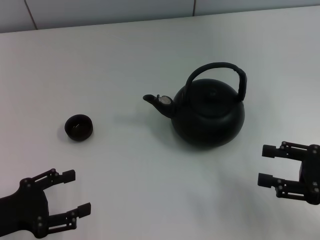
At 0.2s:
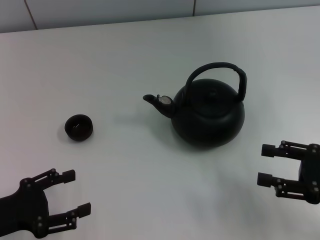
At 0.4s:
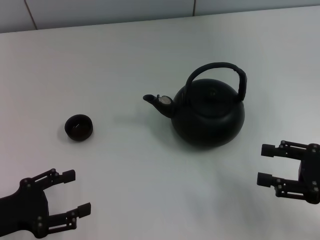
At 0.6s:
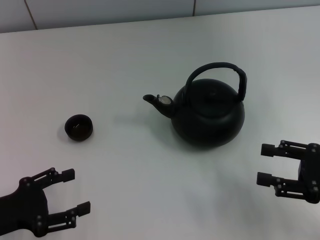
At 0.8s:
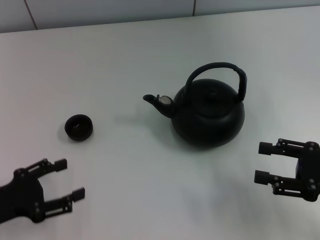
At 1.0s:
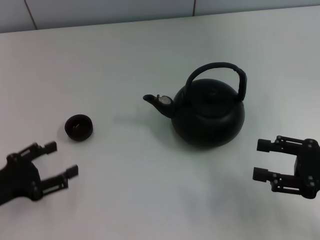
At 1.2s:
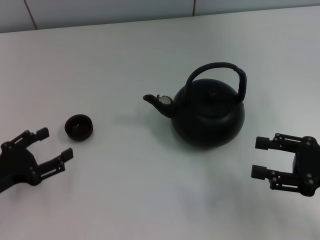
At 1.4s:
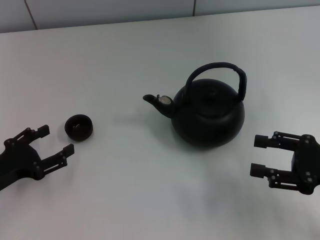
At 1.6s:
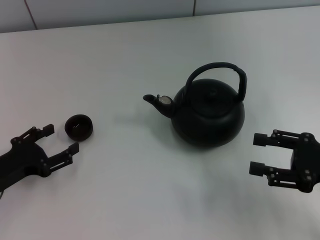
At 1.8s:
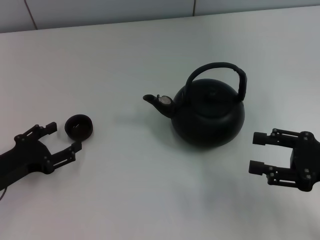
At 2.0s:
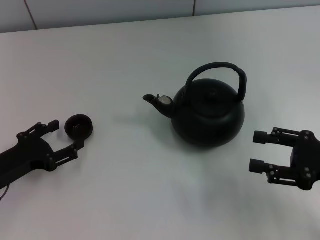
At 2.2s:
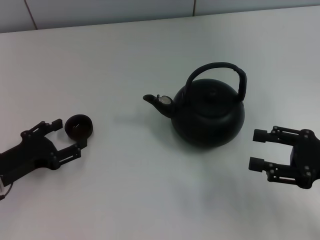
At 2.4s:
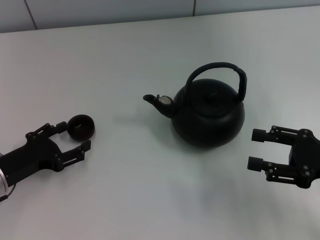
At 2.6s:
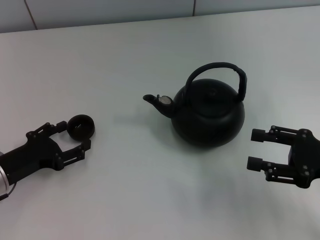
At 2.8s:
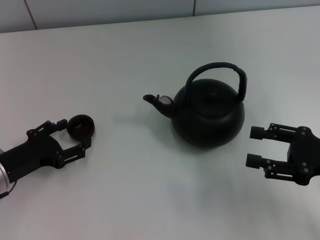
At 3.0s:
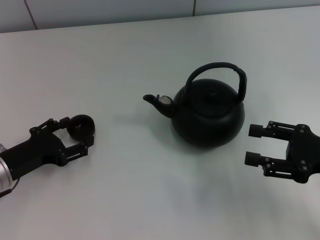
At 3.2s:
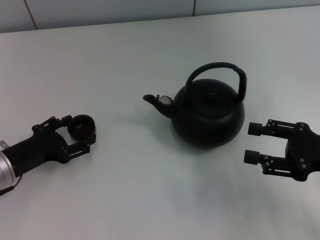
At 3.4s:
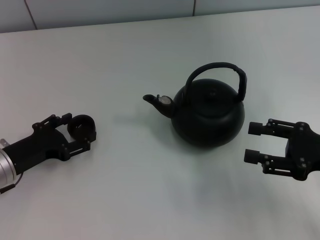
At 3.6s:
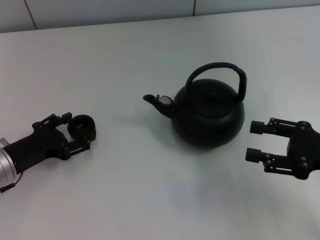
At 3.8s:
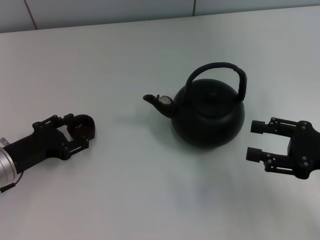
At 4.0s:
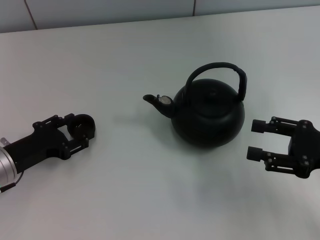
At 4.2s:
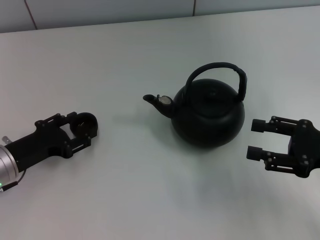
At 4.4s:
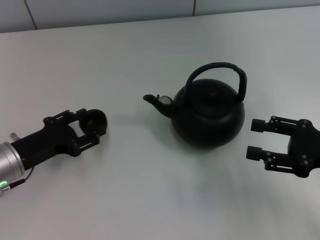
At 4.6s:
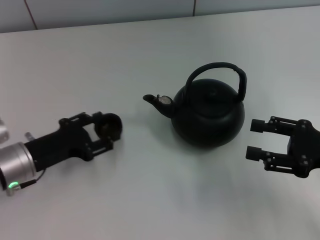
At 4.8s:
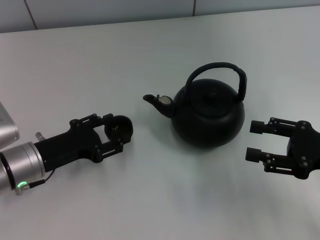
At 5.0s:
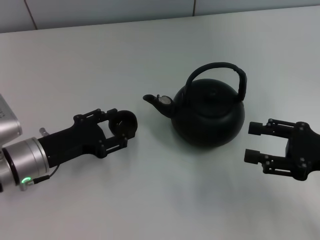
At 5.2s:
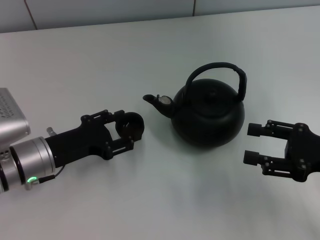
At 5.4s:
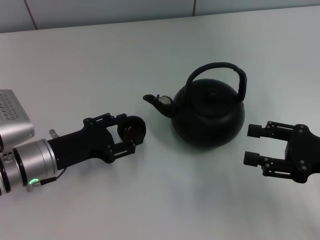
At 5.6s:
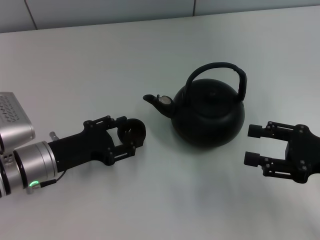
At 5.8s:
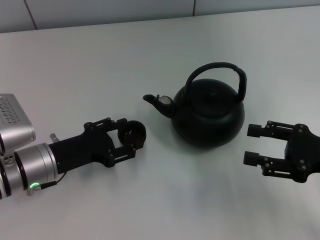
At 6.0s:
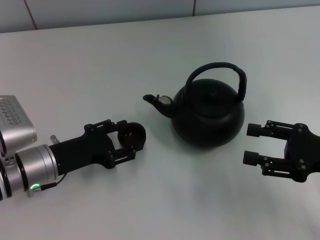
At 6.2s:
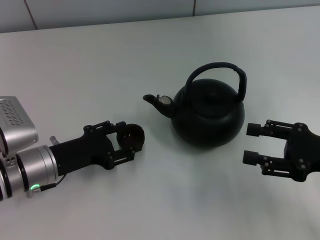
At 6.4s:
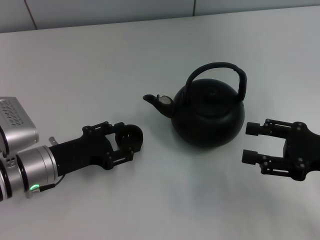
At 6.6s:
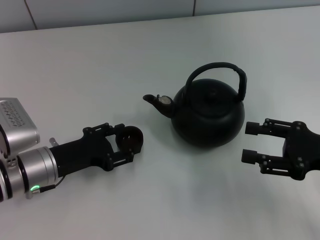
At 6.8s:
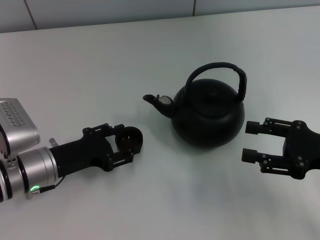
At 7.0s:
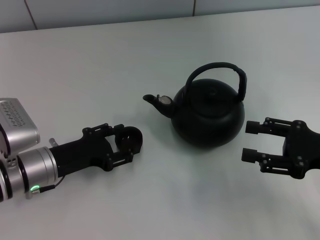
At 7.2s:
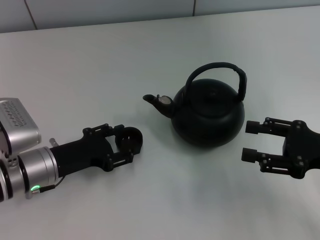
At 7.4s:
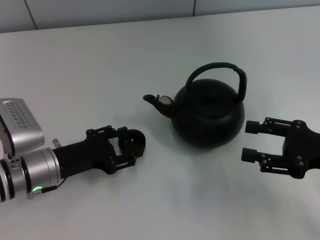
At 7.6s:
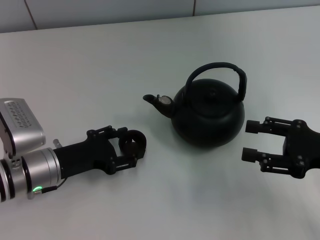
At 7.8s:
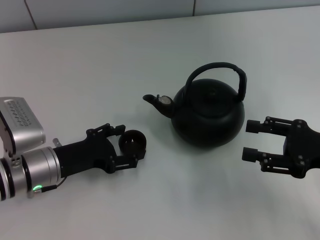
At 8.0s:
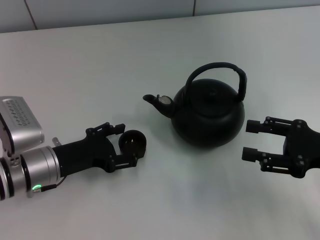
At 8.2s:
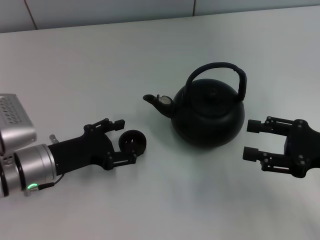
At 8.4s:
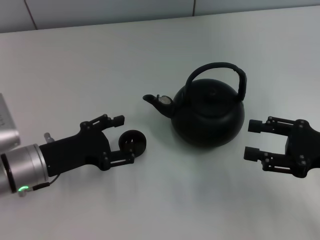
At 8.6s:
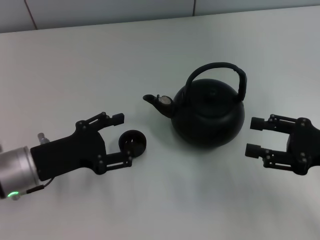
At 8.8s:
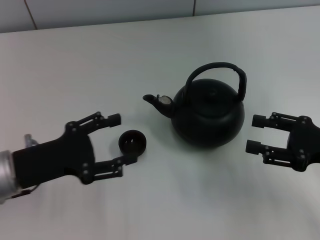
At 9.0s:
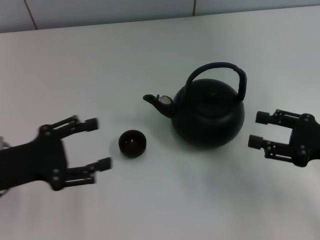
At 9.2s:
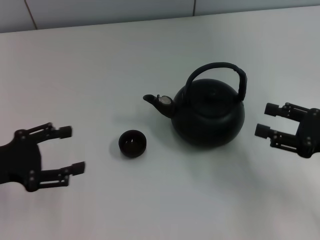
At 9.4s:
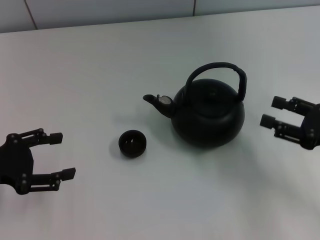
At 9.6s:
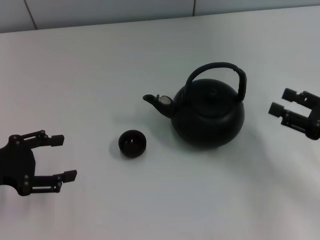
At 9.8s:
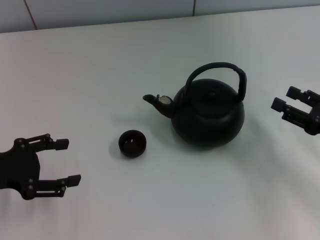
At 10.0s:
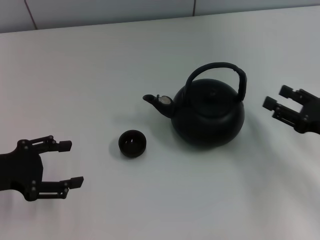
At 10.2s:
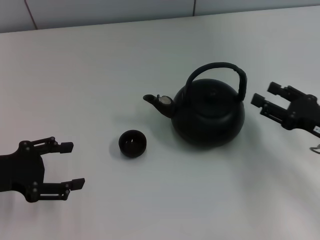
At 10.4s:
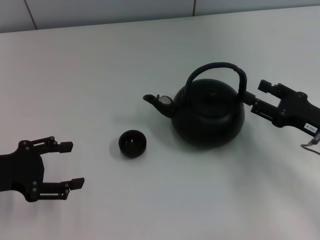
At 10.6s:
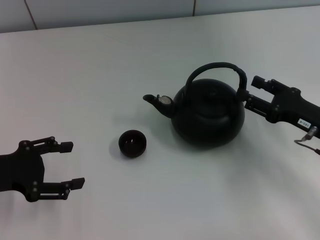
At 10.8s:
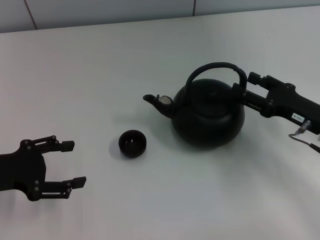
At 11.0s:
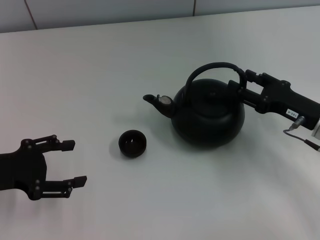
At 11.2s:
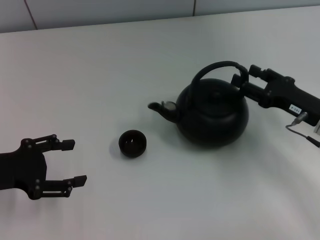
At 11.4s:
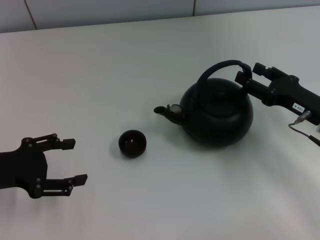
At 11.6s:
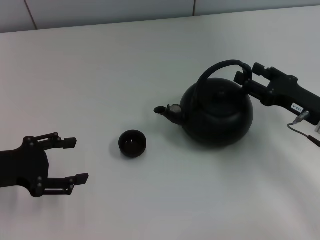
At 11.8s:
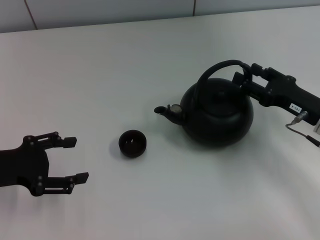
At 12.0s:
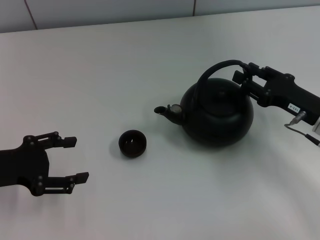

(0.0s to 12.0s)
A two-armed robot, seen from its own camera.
Task of the whole recording: Grasp the handle of the teapot with one hand and pour tea into the teacup.
Step, 0.0s - 4.2s: Pick up the teacup with the left gripper.
Step, 4.4s - 8.2s: Place the teacup in the center of view with the left gripper.
0.0s - 1.6s: The left gripper moves some 5 cm.
1.6s - 3.0s: The grippers make only small movements.
3.0s - 4.4s: The left gripper closes.
4.4s - 6.0s: The grippers make only small movements.
6.0s - 7.6s: Both grippers stay about where they are.
7.6s - 9.0s: The left gripper moves to the left and upward, approximately 10 cm, and opens.
9.0s - 10.4s: The right gripper shifts by approximately 5 cm.
10.4s - 12.0s: There are only small adjustments of the grippers.

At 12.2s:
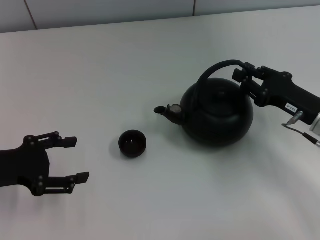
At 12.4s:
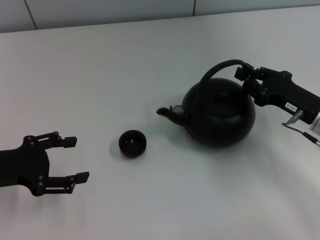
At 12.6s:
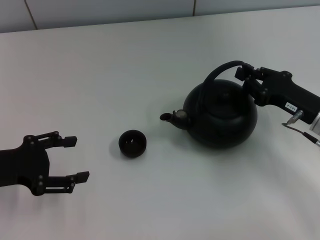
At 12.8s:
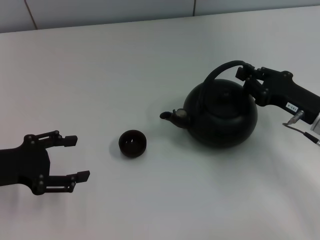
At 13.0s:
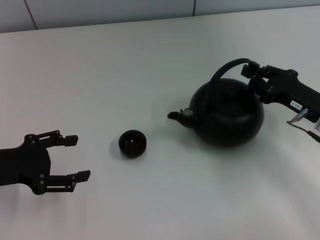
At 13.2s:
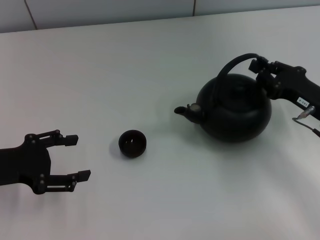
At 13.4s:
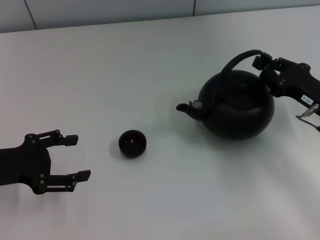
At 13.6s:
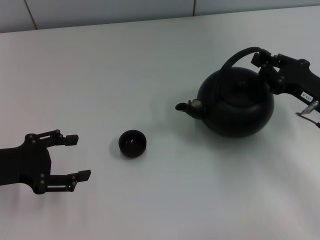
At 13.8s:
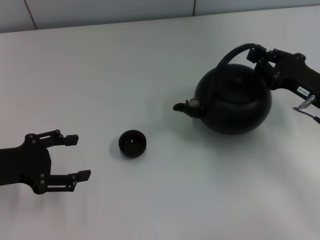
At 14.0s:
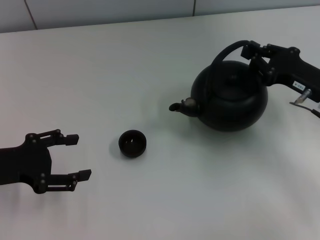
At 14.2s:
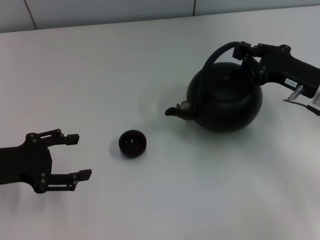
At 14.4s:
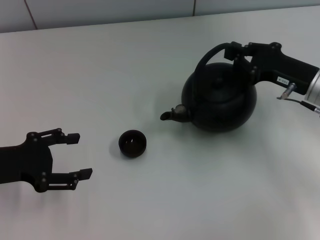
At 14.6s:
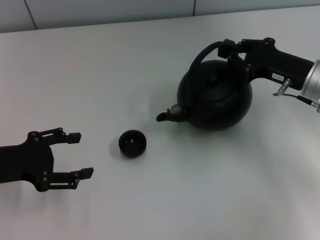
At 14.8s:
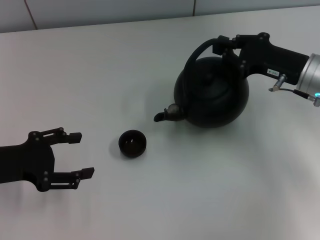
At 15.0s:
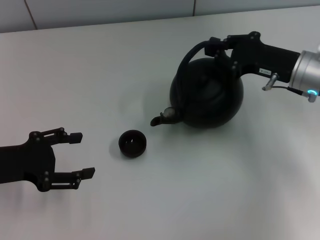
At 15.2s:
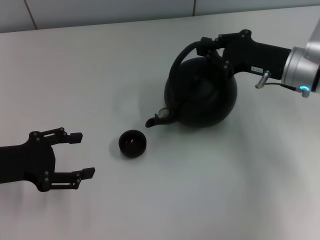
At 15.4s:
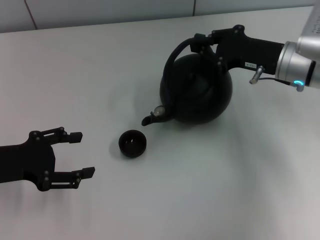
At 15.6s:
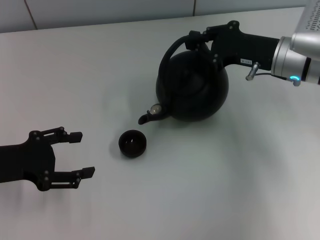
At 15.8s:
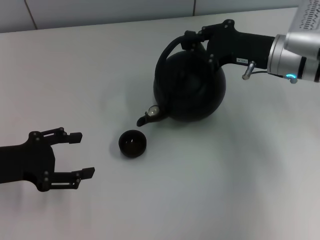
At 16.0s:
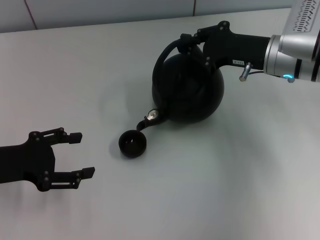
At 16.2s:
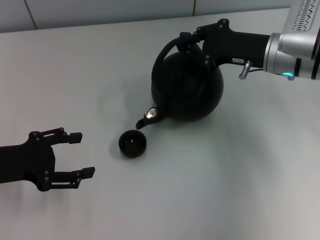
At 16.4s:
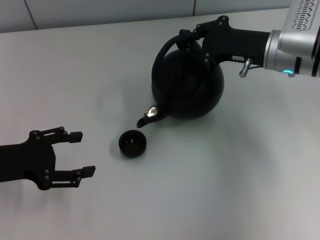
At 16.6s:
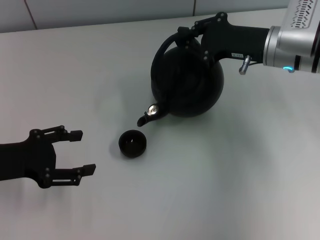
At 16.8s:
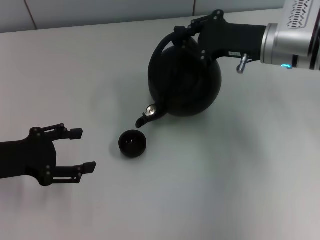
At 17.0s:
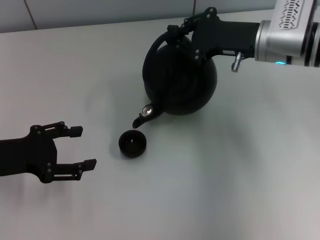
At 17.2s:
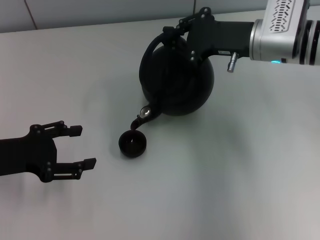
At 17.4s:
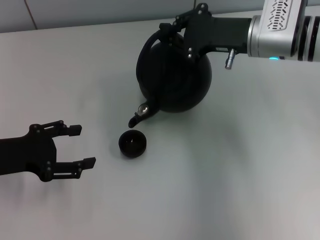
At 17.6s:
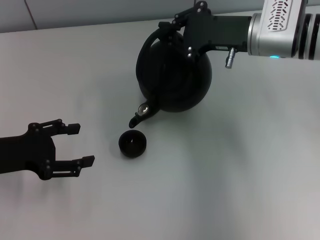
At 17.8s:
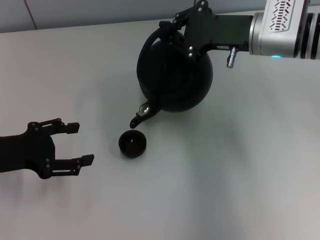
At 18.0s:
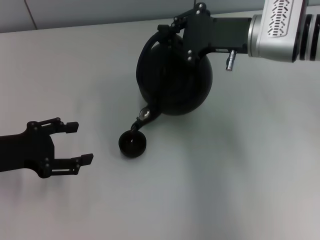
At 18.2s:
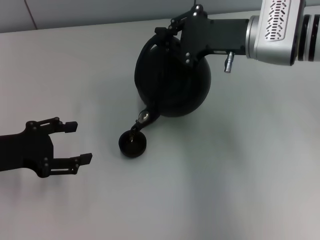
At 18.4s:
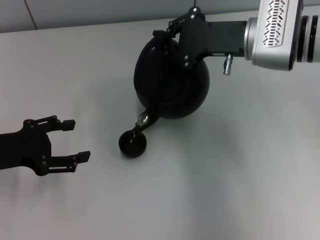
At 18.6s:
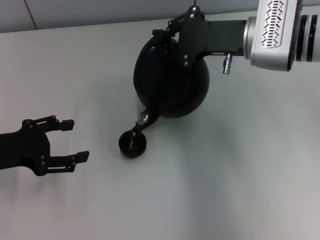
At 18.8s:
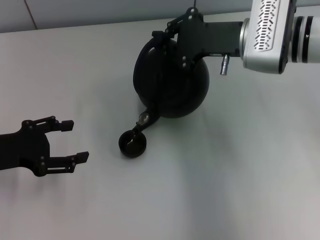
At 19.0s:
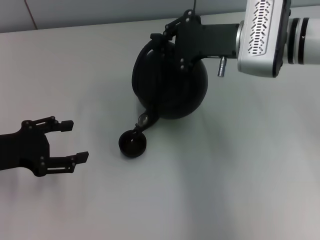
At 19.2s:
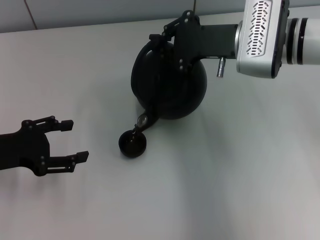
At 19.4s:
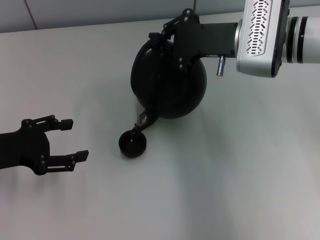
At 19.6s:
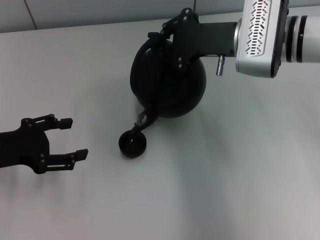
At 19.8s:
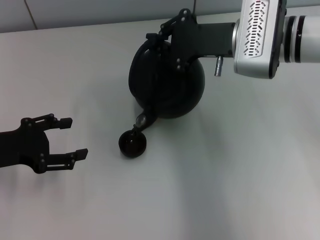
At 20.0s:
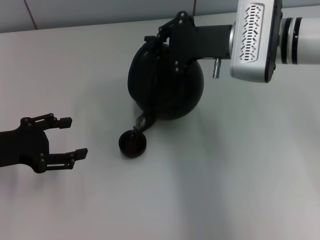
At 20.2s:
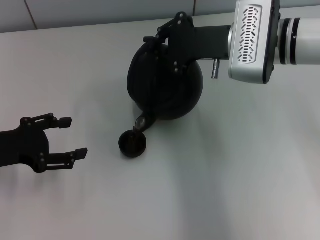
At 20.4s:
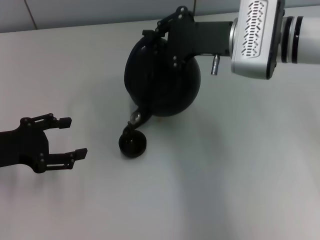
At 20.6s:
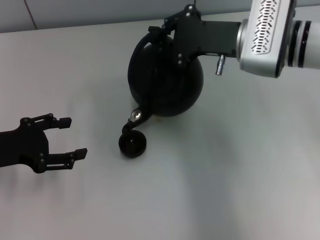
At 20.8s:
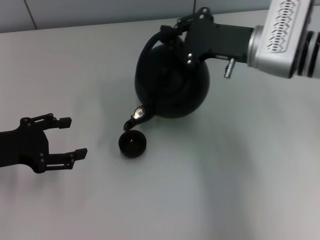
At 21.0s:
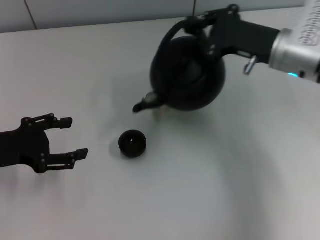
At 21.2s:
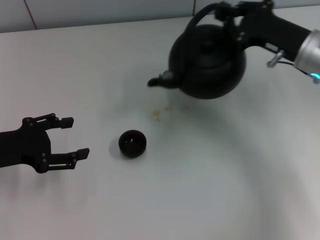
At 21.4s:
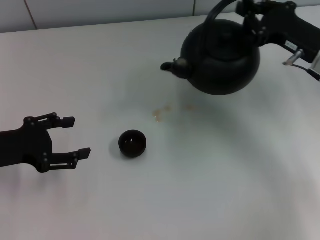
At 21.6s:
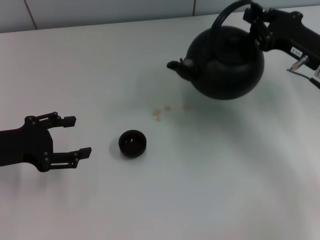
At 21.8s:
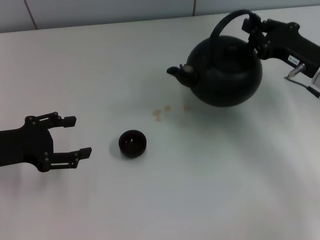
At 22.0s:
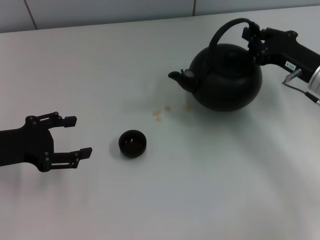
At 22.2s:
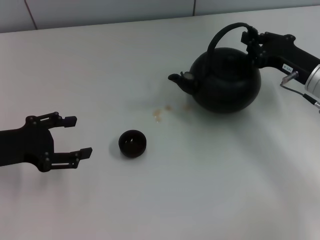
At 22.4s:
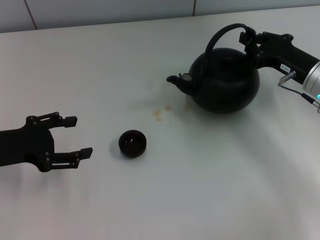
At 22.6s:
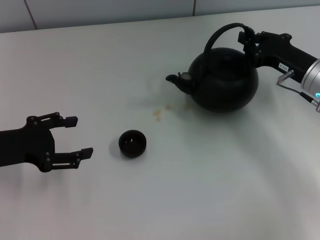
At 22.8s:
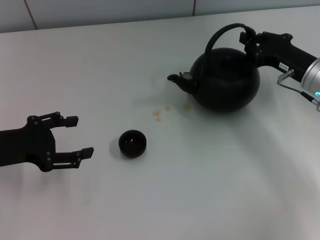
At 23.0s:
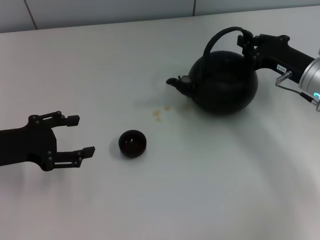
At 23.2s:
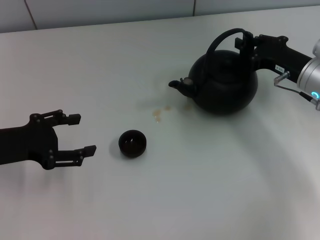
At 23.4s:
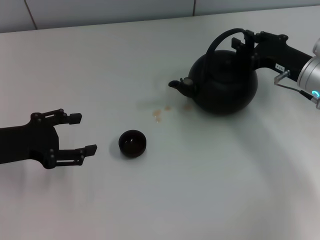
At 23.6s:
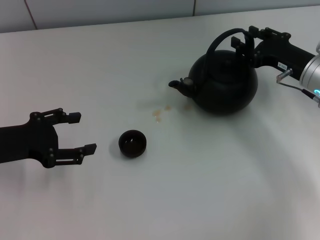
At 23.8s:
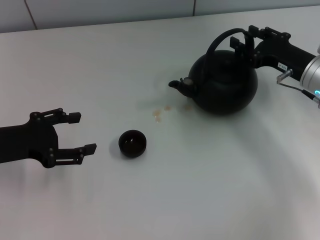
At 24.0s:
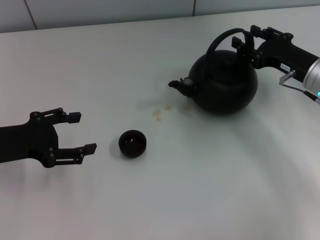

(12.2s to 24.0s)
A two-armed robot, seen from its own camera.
Task of the whole recording: Grasp the handle of the teapot with one hand and pour tea into the teacup.
12.2s - 13.6s: The right gripper closes up.
13.6s - 15.2s: The right gripper travels forward and to the left by approximately 10 cm.
15.2s - 16.6s: The grippers stay close to where they were, moving slightly.
16.6s - 18.2s: The grippers move only a little.
18.2s - 19.6s: The grippers make only small movements.
19.6s - 21.0s: The right gripper shifts some 5 cm to the right.
21.0s - 22.6s: The right gripper travels to the right and downward by roughly 10 cm.
22.6s - 24.0s: The right gripper opens.
